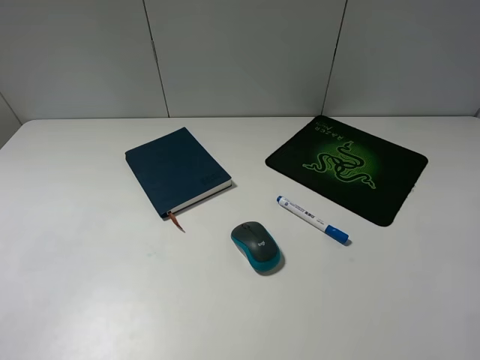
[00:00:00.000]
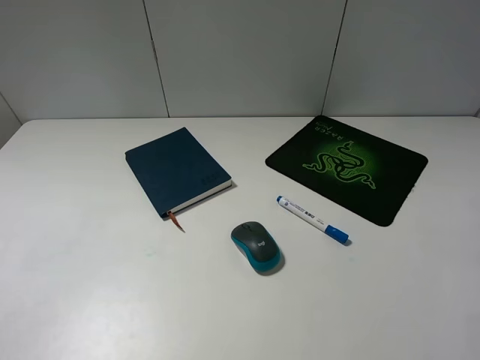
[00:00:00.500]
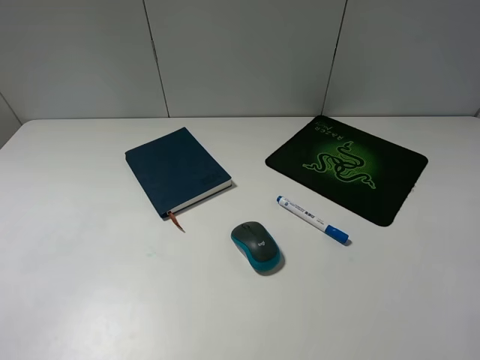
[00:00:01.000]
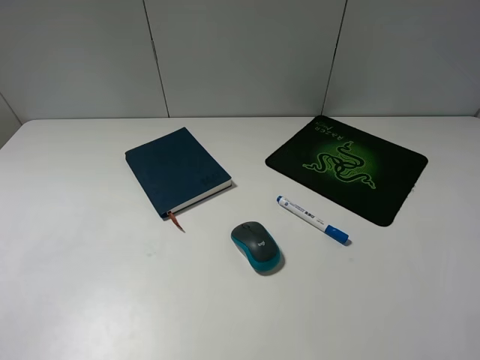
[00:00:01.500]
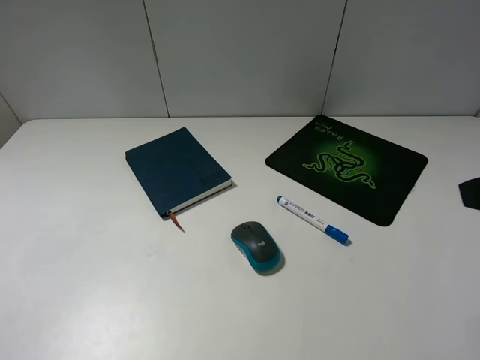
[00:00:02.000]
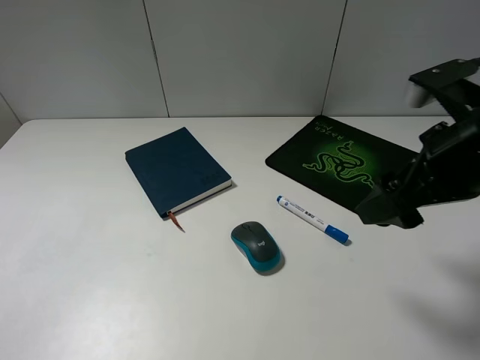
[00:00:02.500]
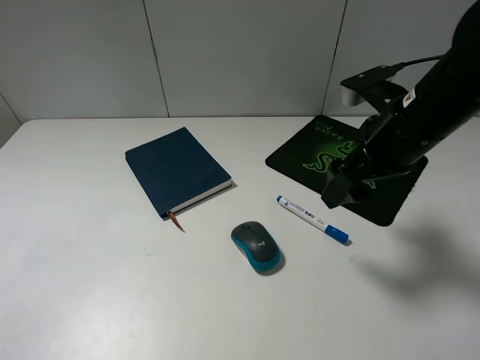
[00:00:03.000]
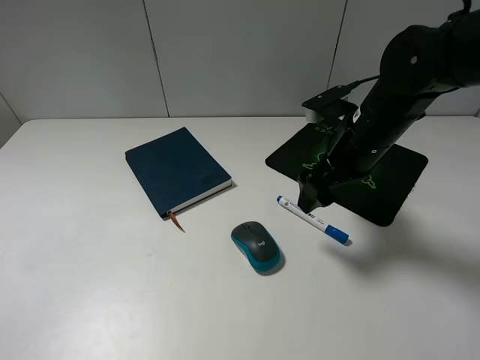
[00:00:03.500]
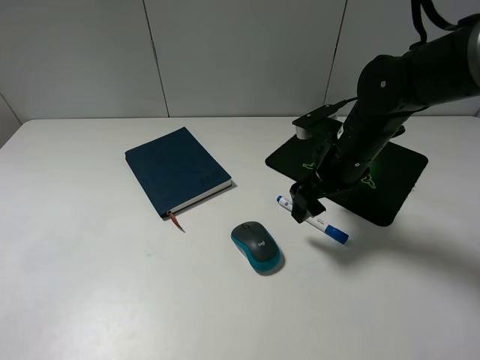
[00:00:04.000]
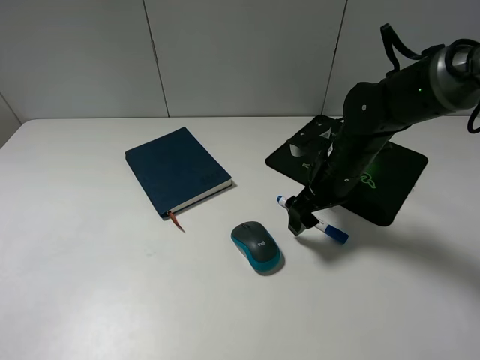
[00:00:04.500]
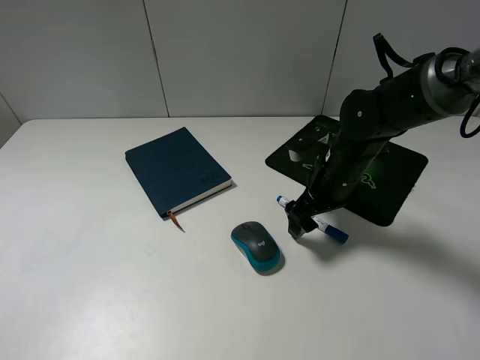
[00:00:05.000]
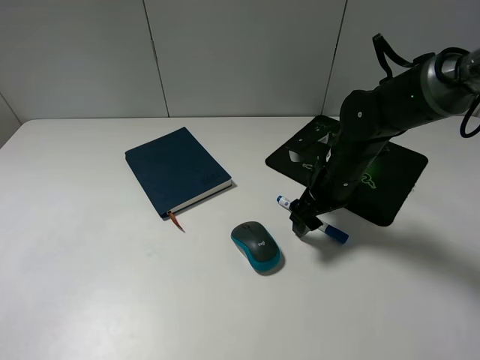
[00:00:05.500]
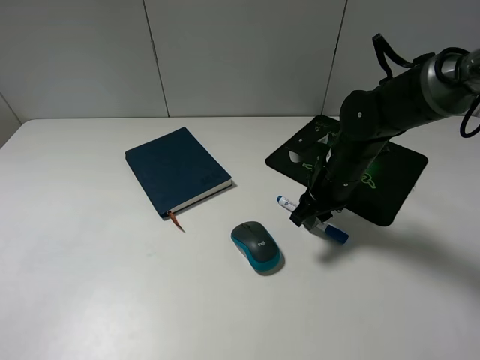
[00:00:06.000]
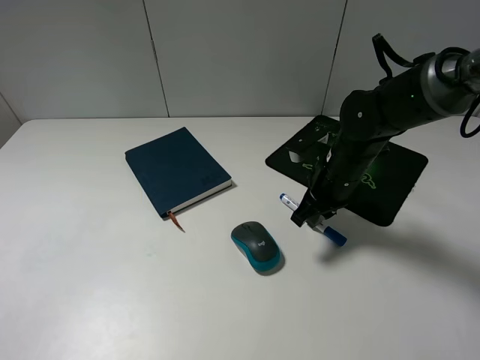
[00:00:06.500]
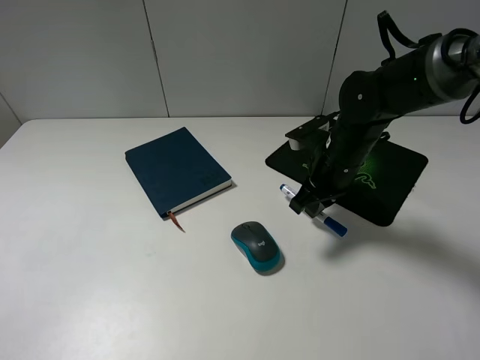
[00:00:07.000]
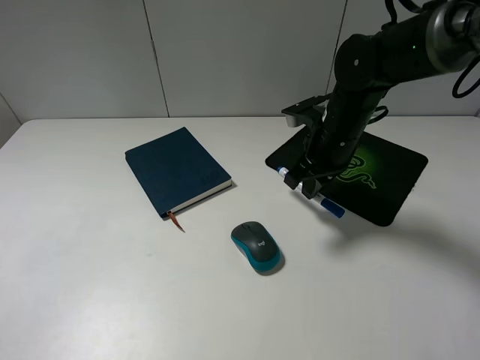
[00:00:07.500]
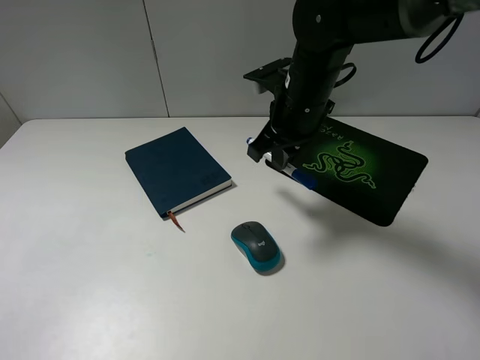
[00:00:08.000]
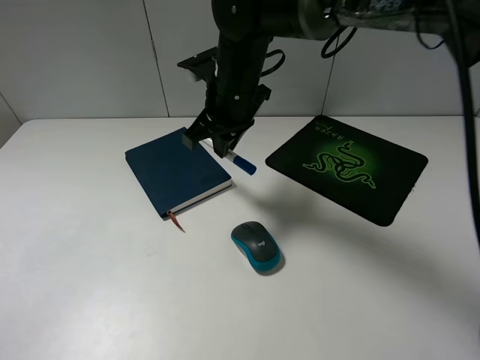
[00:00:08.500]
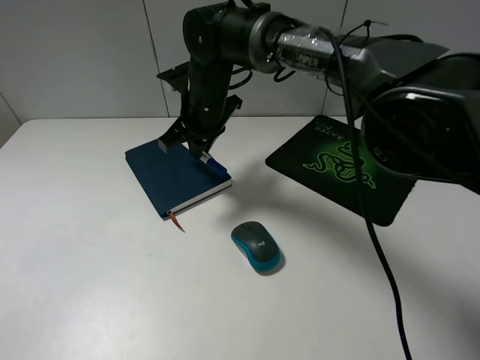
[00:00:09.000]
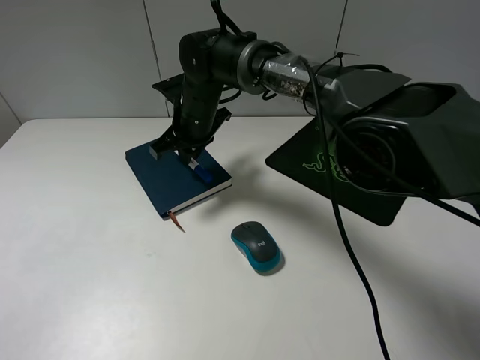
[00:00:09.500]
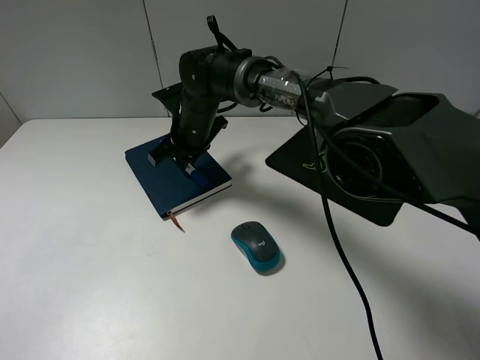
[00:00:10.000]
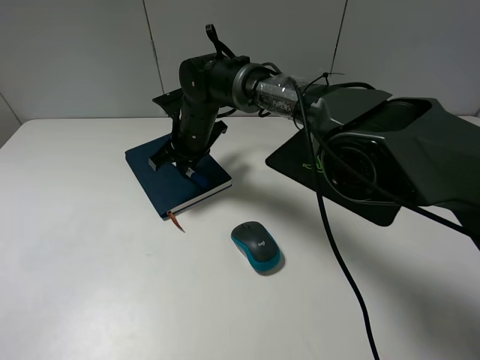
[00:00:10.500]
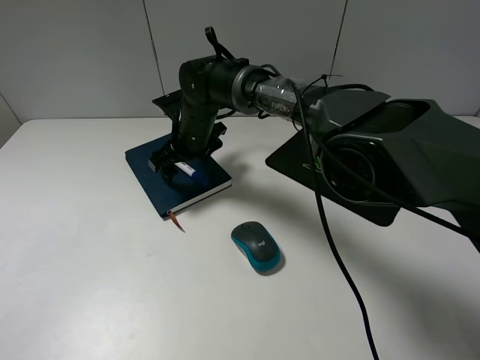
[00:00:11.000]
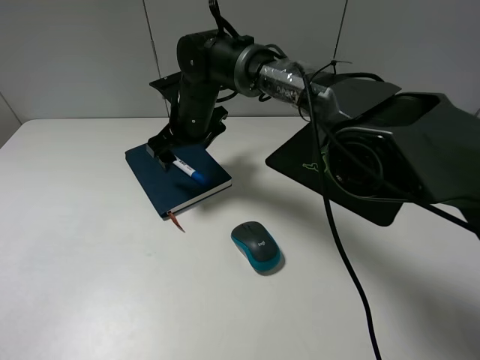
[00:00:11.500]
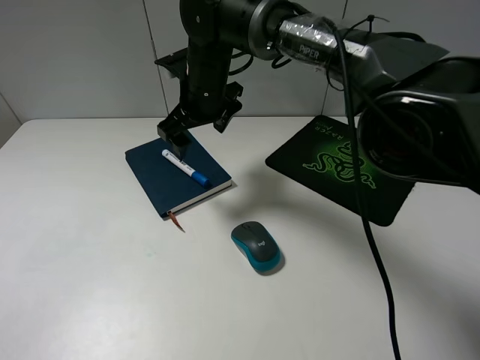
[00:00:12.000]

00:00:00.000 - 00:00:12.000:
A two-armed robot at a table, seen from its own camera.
Step, 00:00:00.000 - 00:00:06.500: Grasp the marker with the right gripper.
Step, 00:00:07.000 - 00:00:11.000: Place the marker on the notebook with the right gripper.
00:00:02.000 - 00:00:04.000: The right gripper heads forward, downward and to the left, covering roughly 25 cm.
00:00:04.000 - 00:00:06.000: The right gripper closes.
00:00:06.000 - 00:00:08.000: The right gripper travels upward and to the left by approximately 15 cm.
00:00:08.000 - 00:00:10.000: The right gripper is displaced to the left, downward and forward by approximately 20 cm.
00:00:10.000 - 00:00:12.000: The right gripper shifts about 5 cm upward, and opens up.

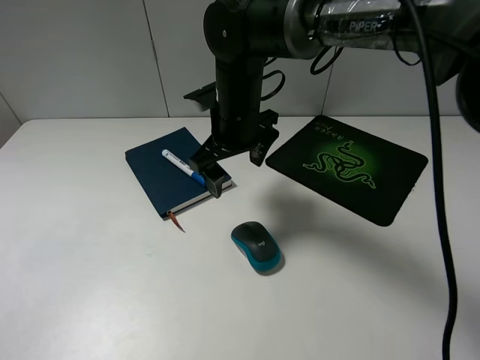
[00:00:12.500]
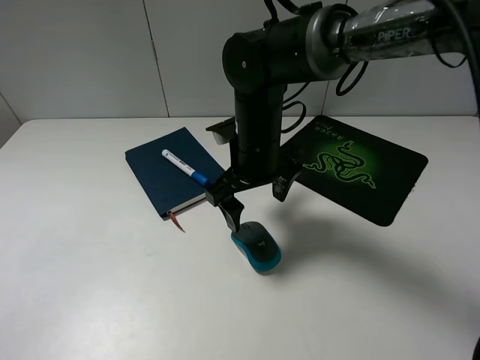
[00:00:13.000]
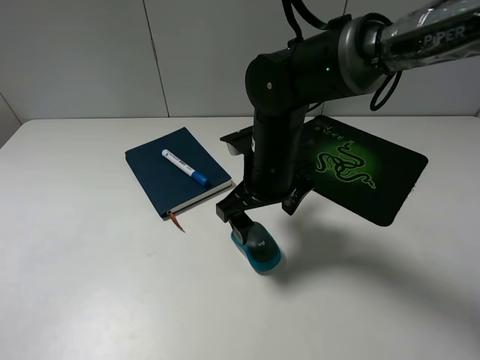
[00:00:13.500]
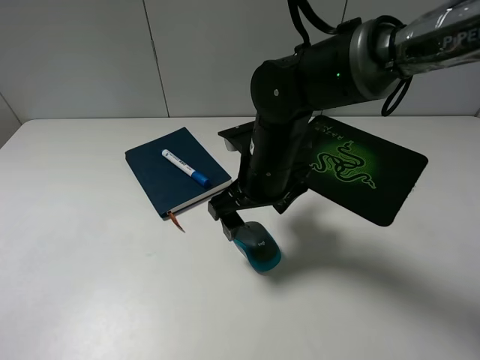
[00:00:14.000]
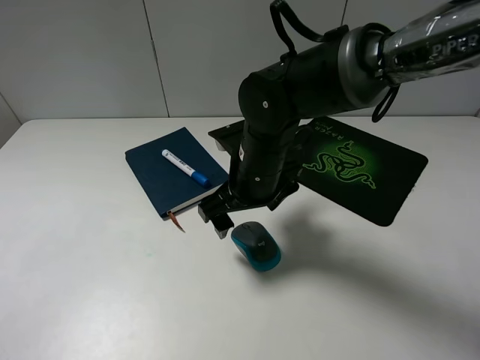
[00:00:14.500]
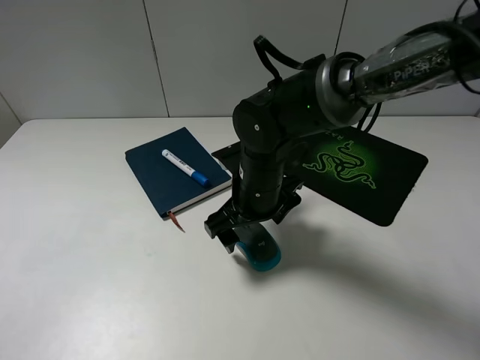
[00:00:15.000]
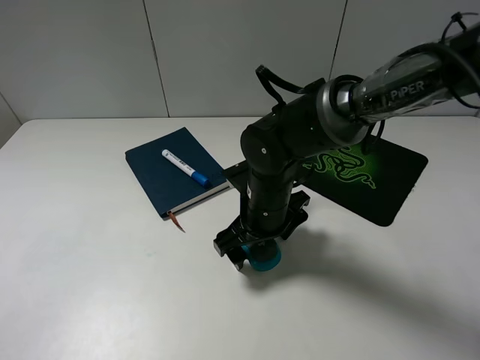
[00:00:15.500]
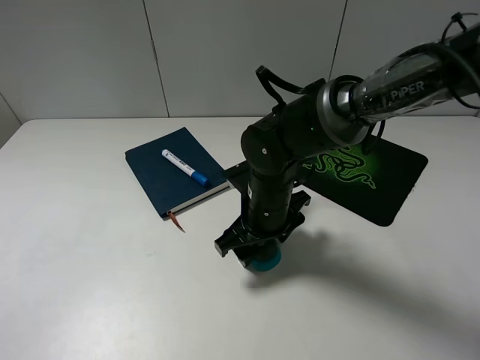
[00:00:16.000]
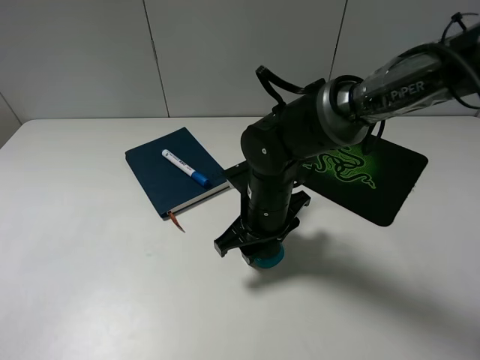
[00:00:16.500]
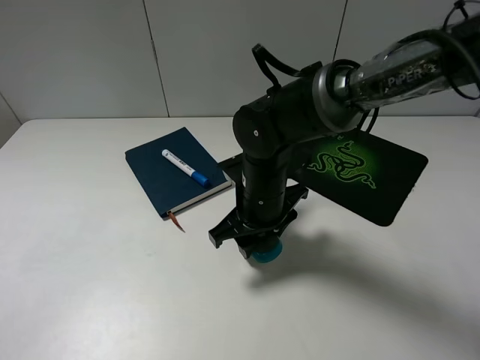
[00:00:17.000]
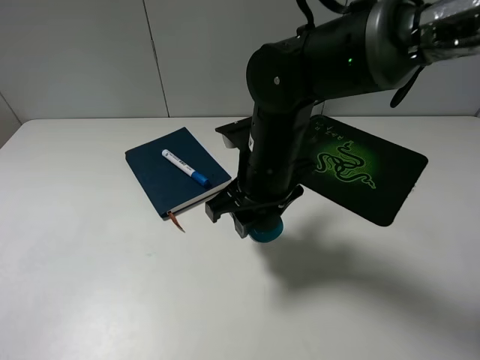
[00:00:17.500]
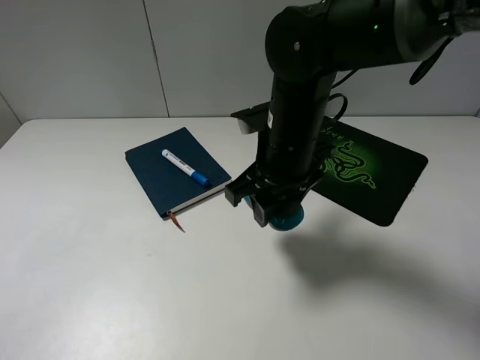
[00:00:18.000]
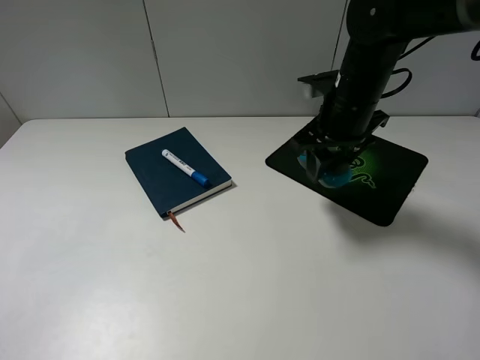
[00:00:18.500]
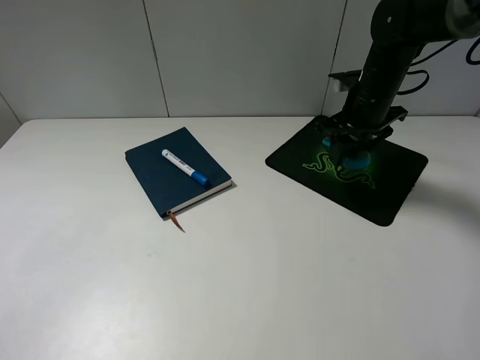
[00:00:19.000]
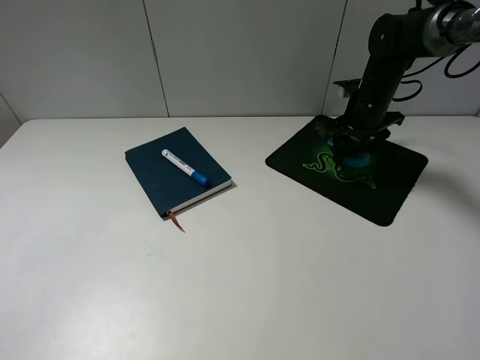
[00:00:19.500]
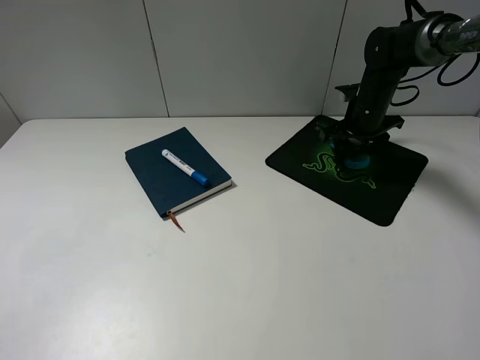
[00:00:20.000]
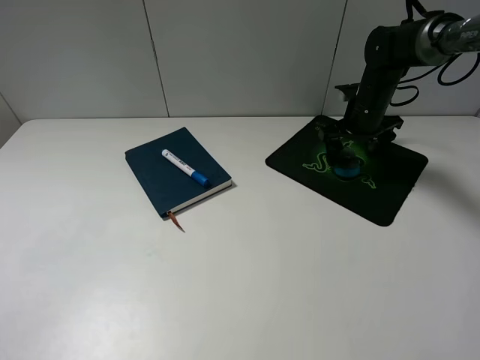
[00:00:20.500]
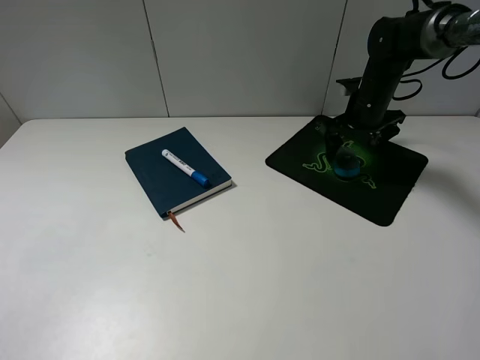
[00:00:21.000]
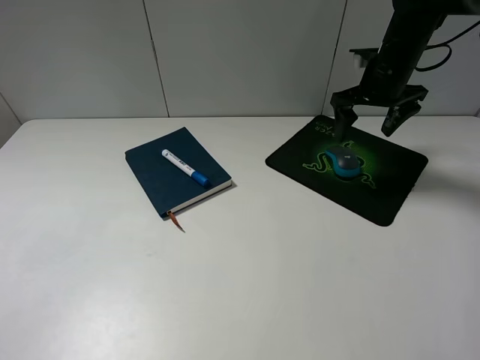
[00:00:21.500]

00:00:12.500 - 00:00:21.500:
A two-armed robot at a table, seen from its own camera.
Step, 00:00:12.500 - 00:00:16.000: Grasp the mouse with the right gripper.
Step, 00:00:16.500 - 00:00:20.500: Place the mouse on the mouse pad with the right gripper.
00:00:12.500 - 00:00:14.500: The right gripper heads backward, covering approximately 5 cm.
00:00:14.500 - 00:00:17.000: The right gripper closes.
00:00:17.000 - 00:00:19.500: The right gripper goes approximately 25 cm to the right and forward.
00:00:19.500 - 00:00:21.500: The right gripper is displaced upward by approximately 5 cm, and opens.

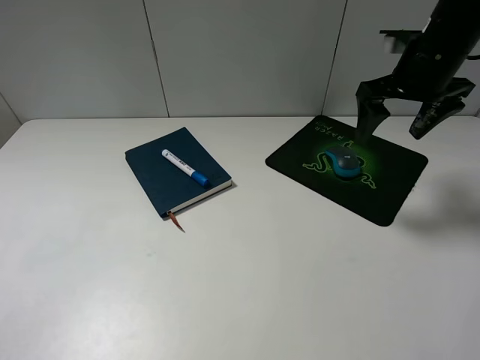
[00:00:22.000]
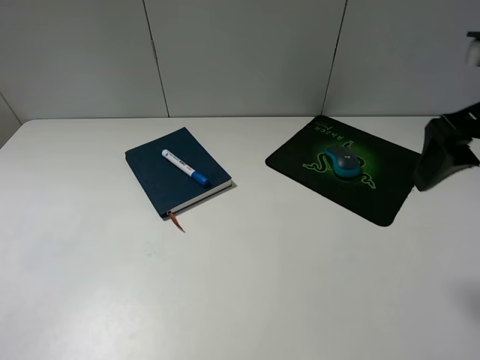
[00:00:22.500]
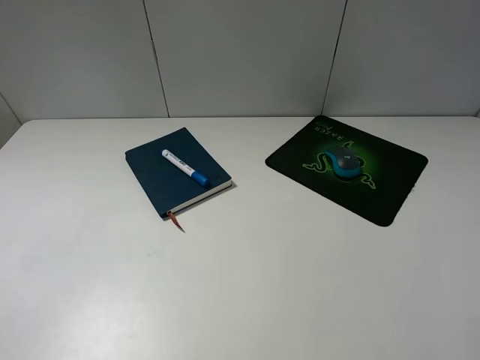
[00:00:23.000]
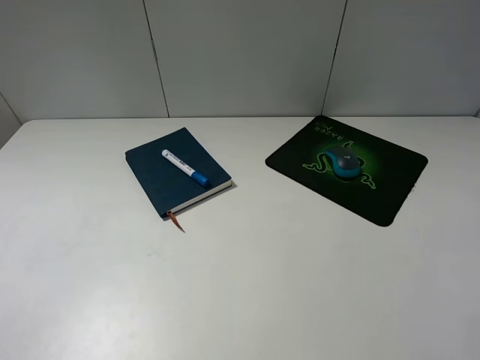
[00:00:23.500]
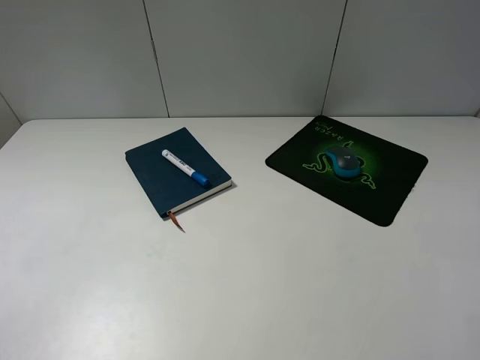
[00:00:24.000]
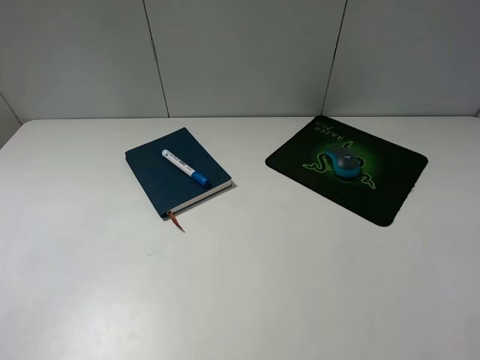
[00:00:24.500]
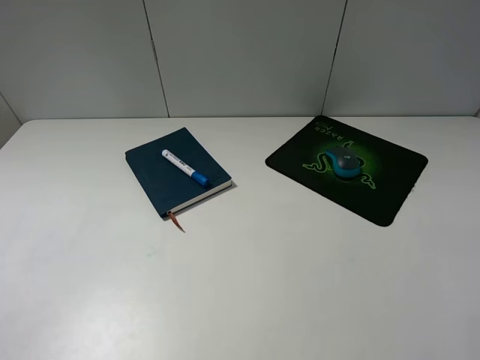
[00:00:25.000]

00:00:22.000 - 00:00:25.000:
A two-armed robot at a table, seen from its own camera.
00:00:22.000 - 00:00:23.500: The right gripper shifts roughly 35 cm backward.
